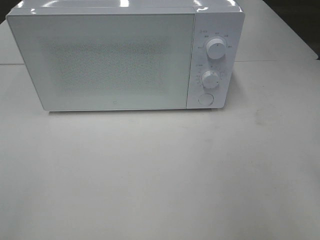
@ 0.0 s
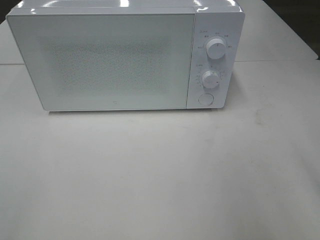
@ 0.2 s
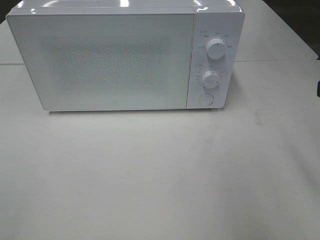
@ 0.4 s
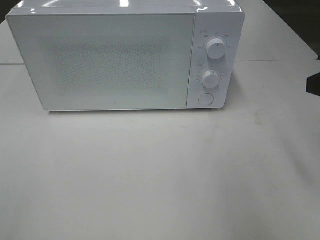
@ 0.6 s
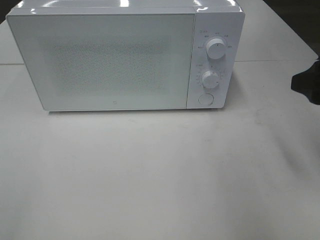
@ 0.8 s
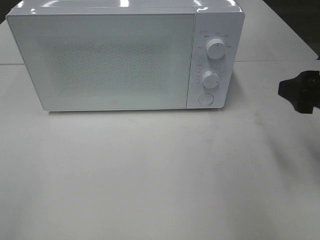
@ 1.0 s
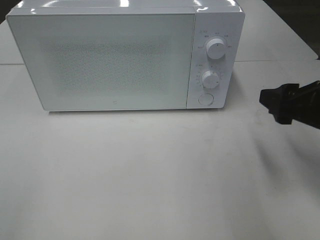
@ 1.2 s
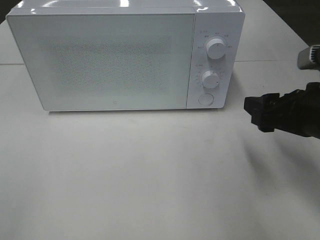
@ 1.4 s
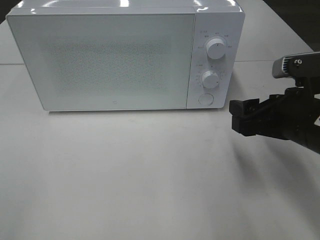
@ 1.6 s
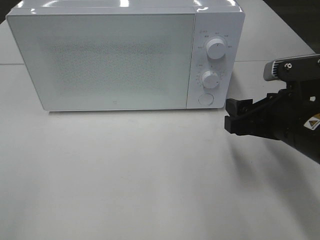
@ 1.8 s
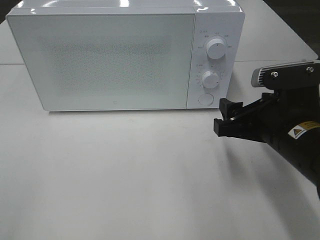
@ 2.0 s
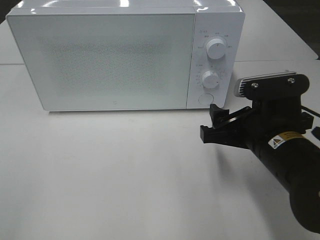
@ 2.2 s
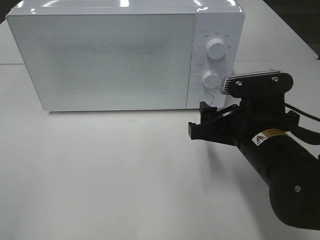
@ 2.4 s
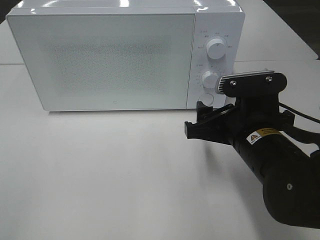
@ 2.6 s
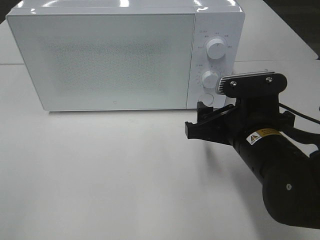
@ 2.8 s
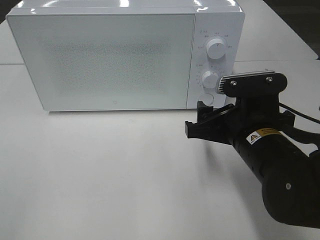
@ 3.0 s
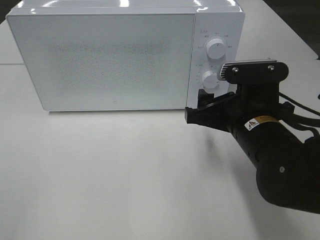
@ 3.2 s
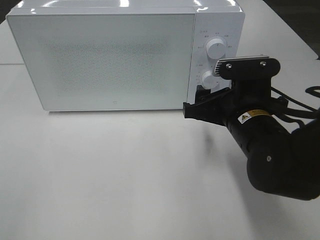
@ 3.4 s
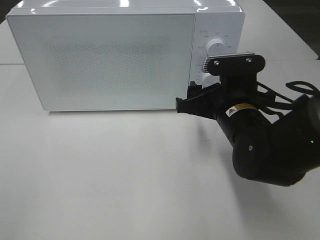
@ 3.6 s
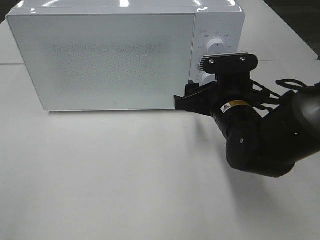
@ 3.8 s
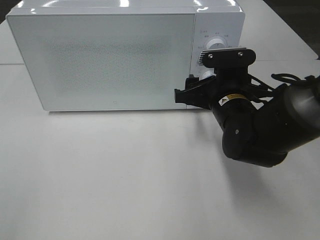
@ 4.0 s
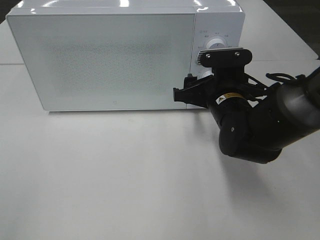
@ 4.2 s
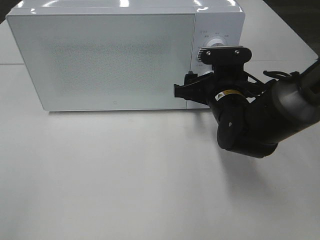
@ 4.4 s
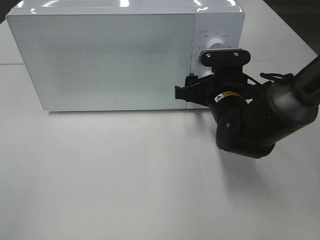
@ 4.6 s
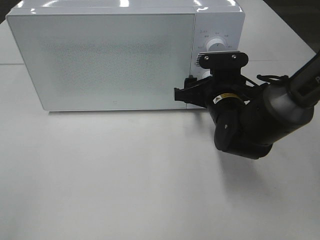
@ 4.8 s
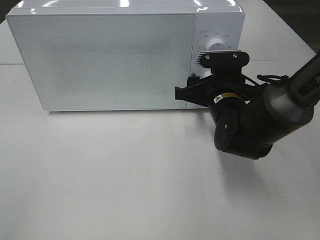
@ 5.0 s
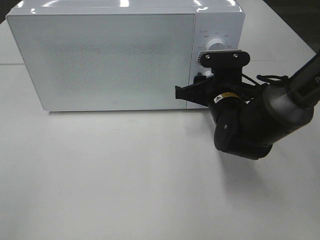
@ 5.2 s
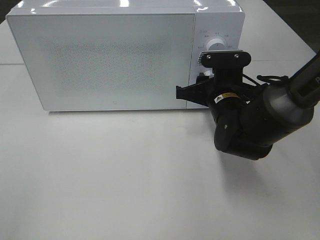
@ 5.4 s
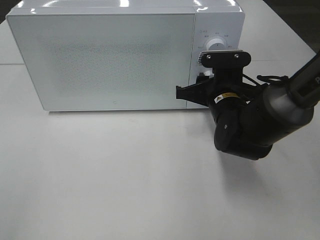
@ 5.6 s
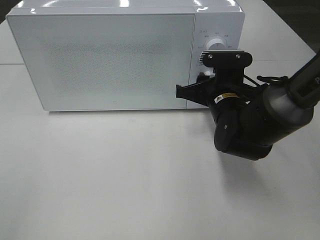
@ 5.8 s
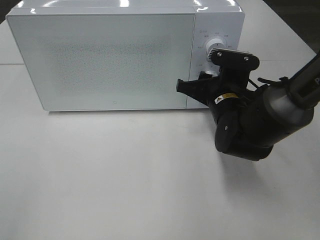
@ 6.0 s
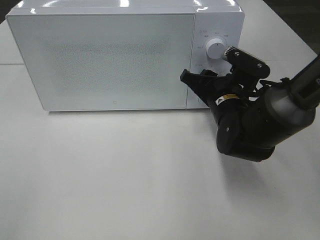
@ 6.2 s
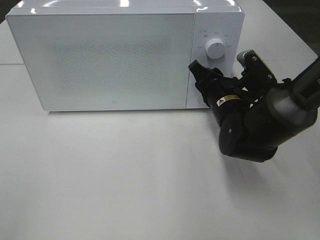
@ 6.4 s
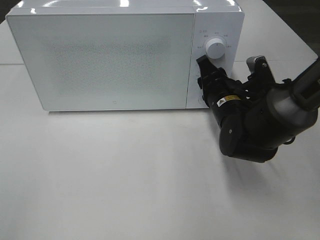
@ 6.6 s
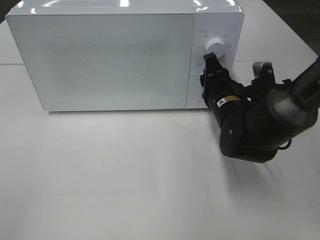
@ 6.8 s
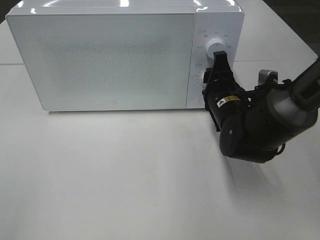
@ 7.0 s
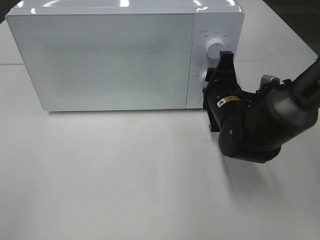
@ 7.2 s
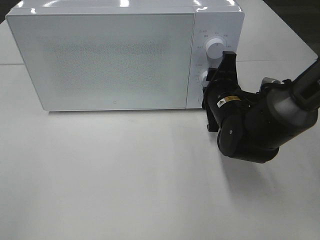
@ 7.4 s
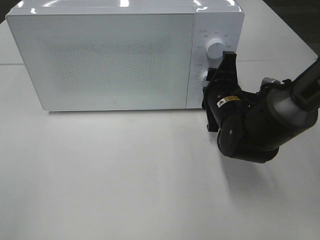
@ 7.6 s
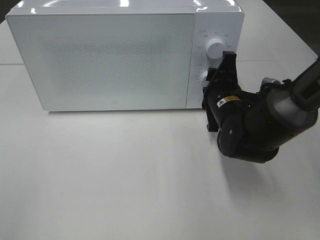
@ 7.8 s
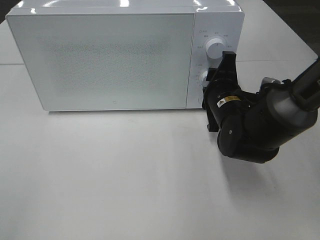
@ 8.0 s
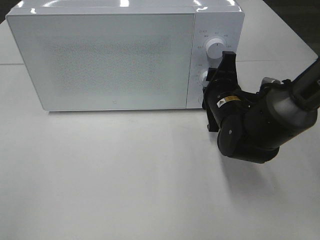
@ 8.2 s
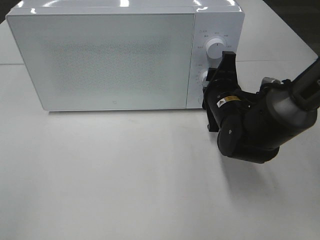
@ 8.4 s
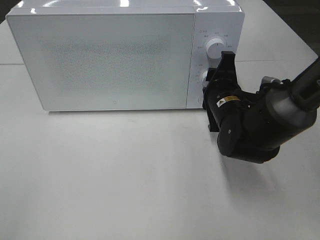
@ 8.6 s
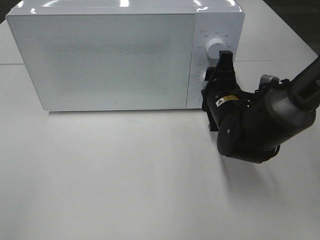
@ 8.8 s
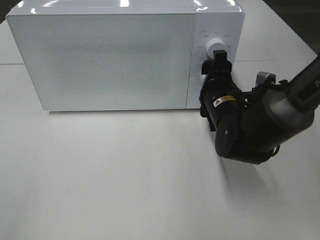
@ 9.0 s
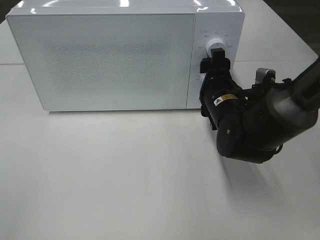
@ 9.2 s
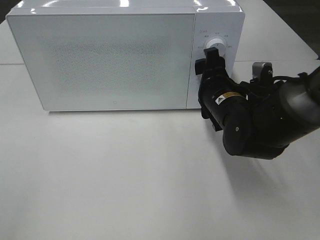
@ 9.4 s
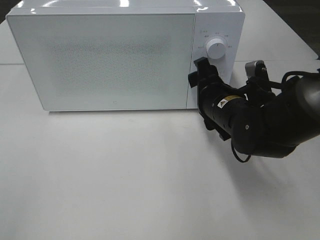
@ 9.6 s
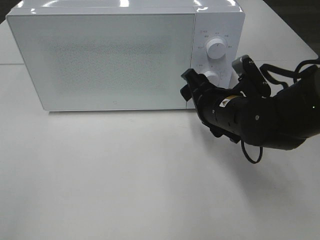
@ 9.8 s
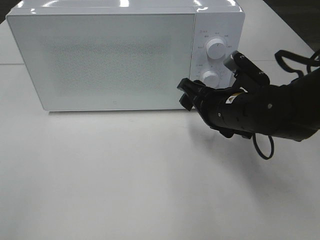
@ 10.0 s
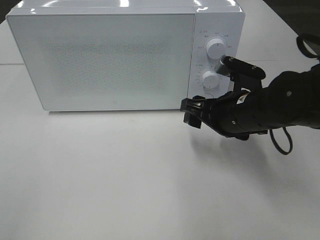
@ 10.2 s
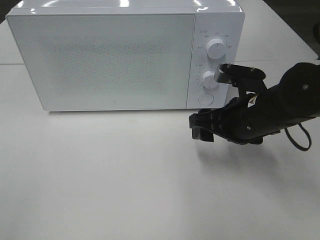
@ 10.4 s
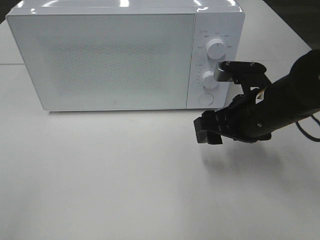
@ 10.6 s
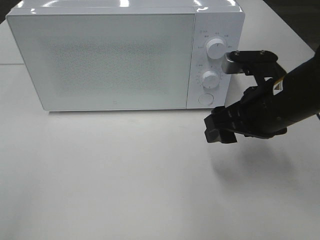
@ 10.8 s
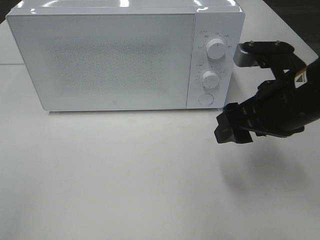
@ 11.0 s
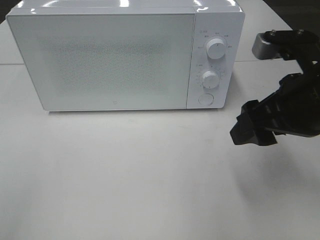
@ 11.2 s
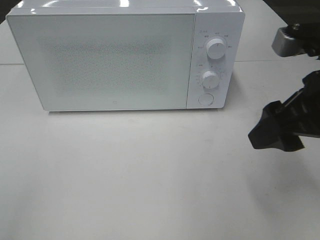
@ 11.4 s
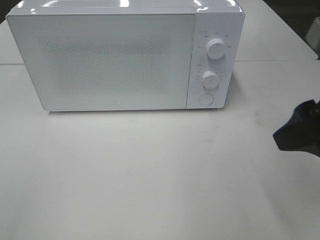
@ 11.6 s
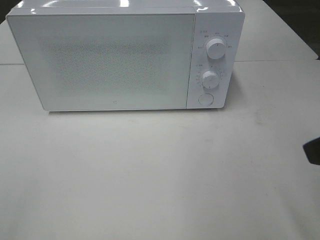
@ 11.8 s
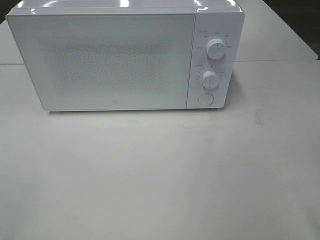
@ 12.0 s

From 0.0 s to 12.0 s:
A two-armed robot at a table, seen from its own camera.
Task of the whole recording: Heat the burger.
Step, from 0.0 s to 8.8 s: Right hand: twist timer button.
From 0.0 s to 1.6 s: The right gripper moves downward, forward and to the left, roughly 15 cm.
From 1.6 s to 3.0 s: The right gripper travels to the left by some 5 cm.
From 3.0 s to 4.4 s: The right gripper goes approximately 10 cm forward.
From 4.4 s to 6.0 s: The right gripper closes up.
From 7.6 s to 9.0 s: The grippers move only a little.
From 9.0 s to 10.4 s: The right gripper shifts roughly 5 cm backward.
From 10.4 s to 12.0 s: The right gripper moves backward, upward and to the right, some 25 cm.

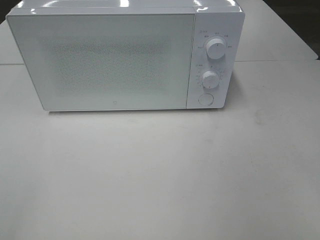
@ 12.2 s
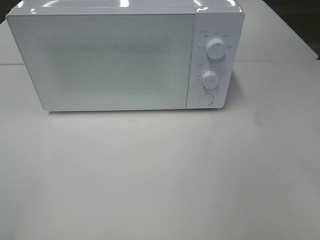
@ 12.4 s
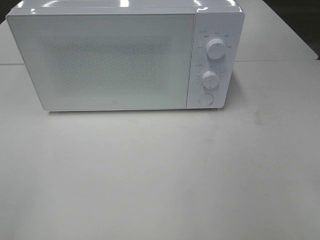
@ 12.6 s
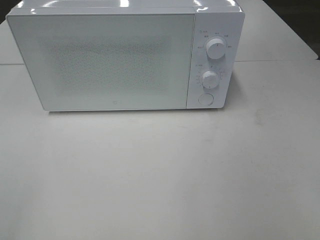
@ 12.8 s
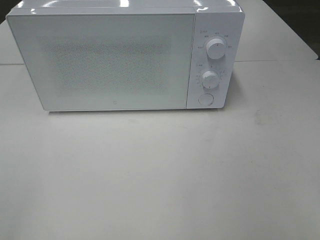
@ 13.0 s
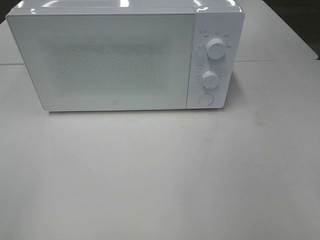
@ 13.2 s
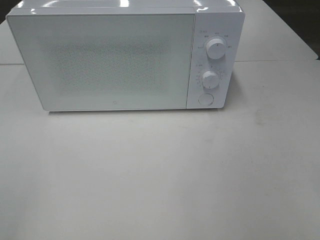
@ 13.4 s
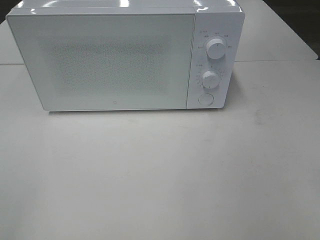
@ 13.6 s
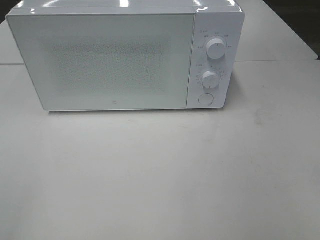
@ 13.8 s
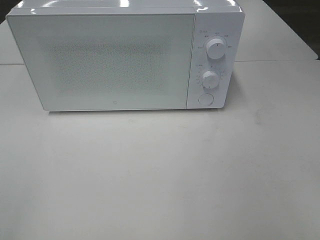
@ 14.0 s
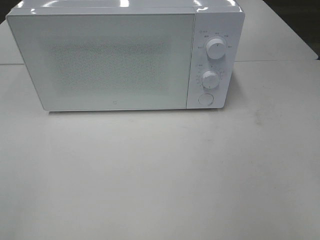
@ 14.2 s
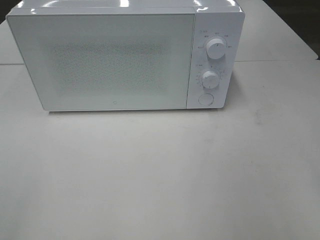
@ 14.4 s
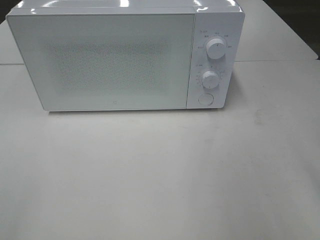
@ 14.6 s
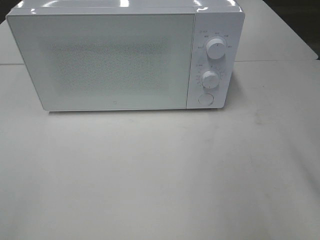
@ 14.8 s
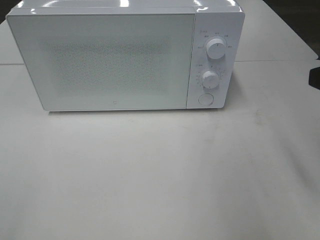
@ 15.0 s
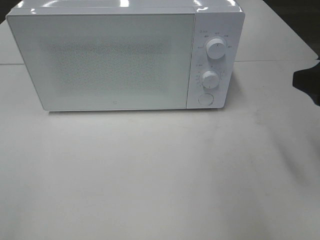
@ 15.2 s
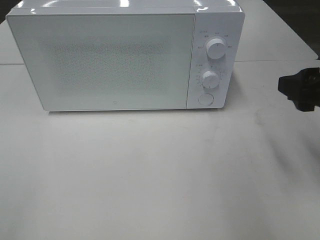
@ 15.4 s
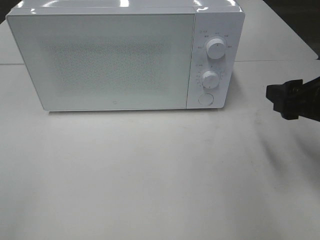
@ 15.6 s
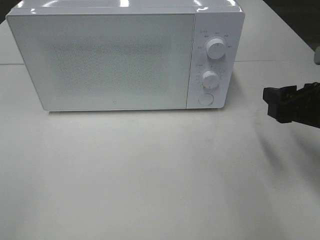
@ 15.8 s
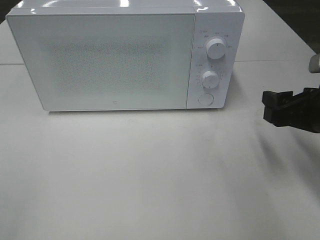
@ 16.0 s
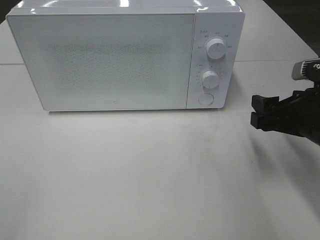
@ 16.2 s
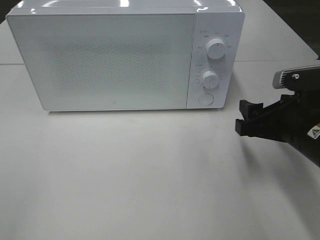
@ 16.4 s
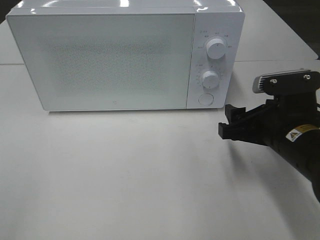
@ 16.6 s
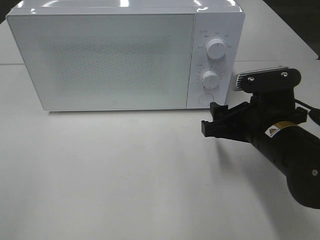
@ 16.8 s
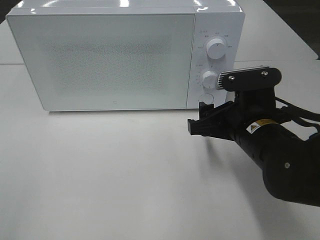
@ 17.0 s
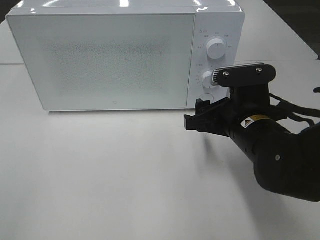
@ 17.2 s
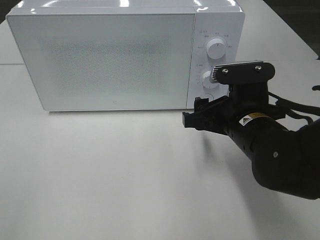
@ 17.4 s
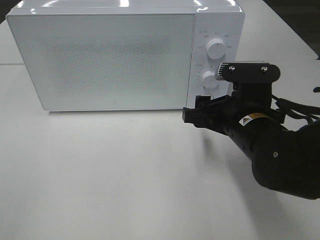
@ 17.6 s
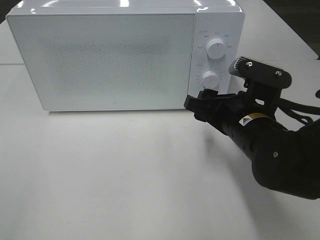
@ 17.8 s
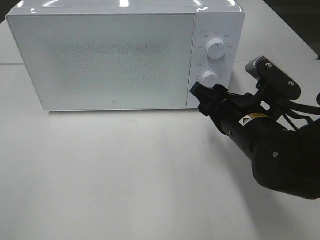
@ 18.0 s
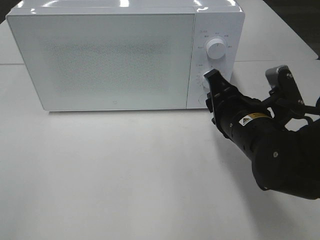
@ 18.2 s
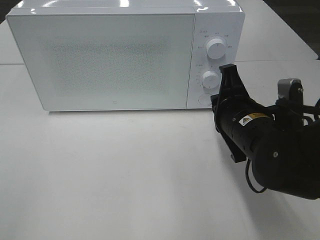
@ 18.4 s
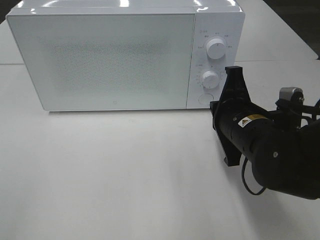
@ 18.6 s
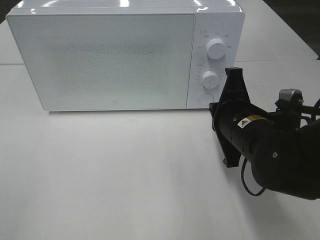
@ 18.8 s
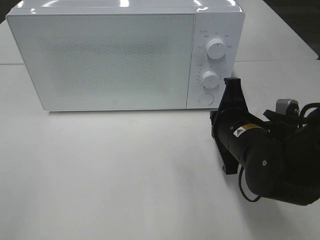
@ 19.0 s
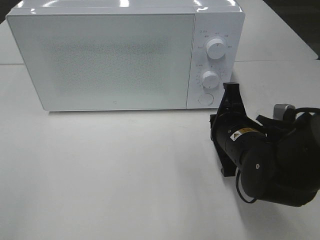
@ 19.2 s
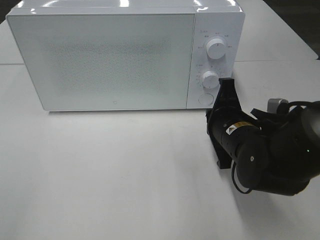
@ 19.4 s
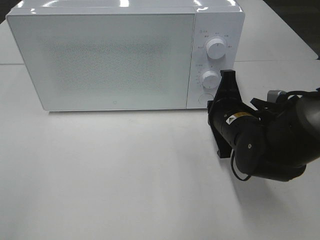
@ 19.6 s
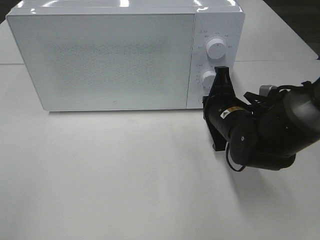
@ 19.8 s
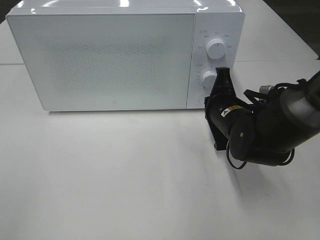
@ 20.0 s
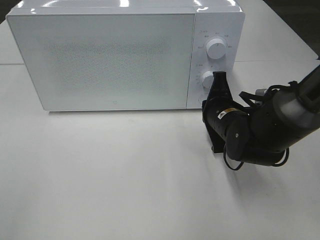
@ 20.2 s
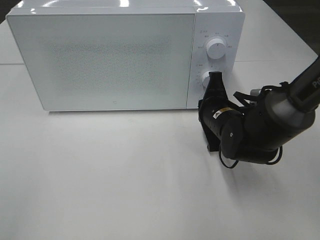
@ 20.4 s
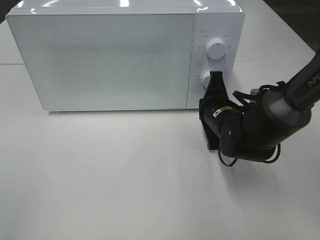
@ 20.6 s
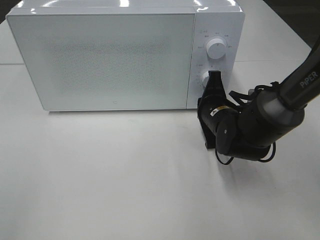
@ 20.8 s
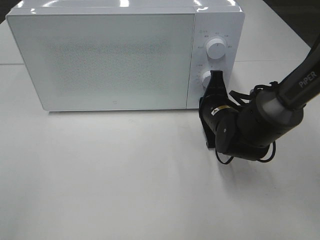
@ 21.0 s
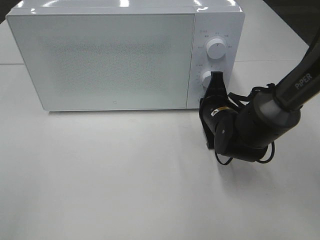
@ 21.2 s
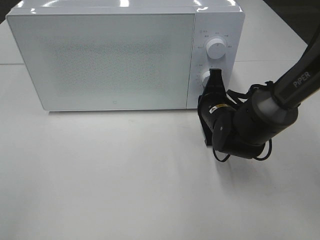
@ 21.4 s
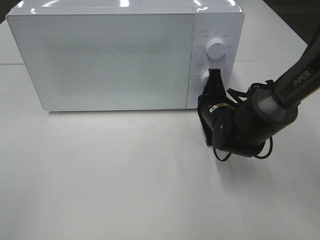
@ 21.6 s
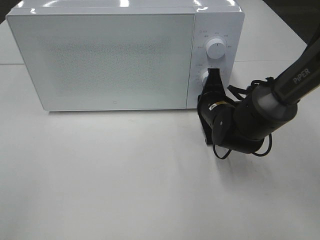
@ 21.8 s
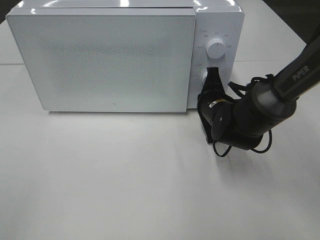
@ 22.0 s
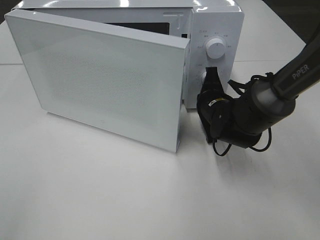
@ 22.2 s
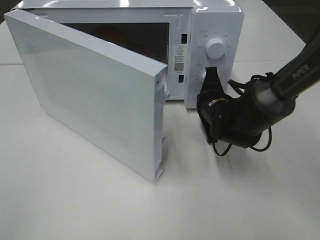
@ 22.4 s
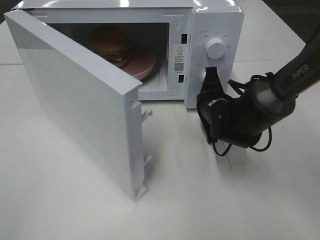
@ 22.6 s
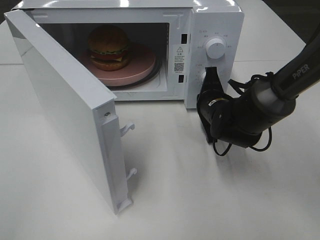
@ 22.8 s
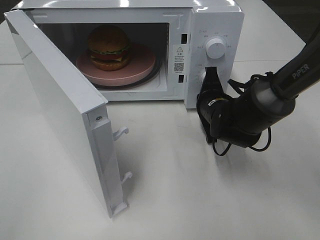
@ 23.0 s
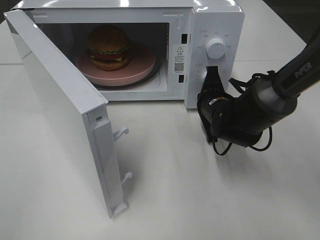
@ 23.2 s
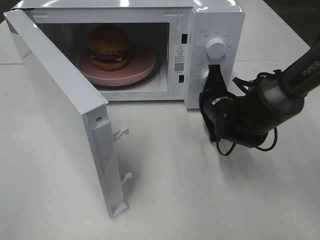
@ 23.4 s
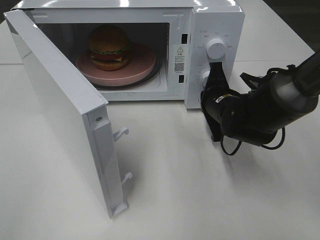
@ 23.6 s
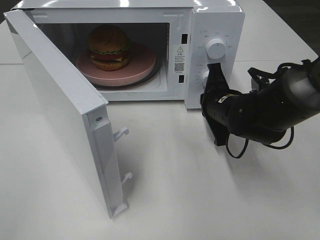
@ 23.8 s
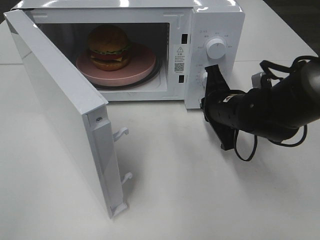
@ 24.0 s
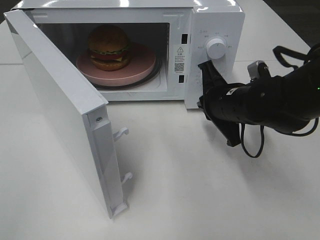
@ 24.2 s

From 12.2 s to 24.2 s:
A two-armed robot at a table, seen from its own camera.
Task of the whole recording: Heat the burger.
Step, from 12.2 s to 23.6 s: Right hand: press the switch.
From 13.8 s to 15.2 s: The right gripper shifts some 20 cm forward.
From 15.2 s to 16.6 s: The right gripper shifts roughly 15 cm downward and to the left.
From 16.6 s to 18.2 s: The right gripper goes roughly 5 cm to the left, and closes.
From 18.2 s to 19.8 s: The right gripper goes roughly 5 cm forward, and closes.
From 19.8 s to 21.2 s: The grippers stay close to where they were, moving slightly.
From 22.6 s to 24.2 s: The right gripper moves upward and backward, some 10 cm.
